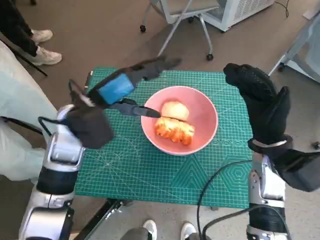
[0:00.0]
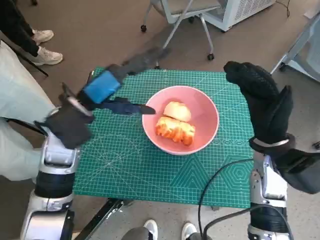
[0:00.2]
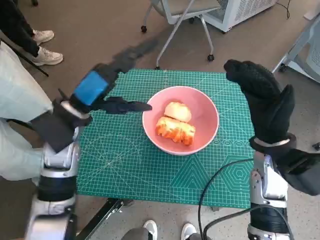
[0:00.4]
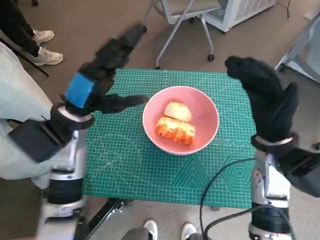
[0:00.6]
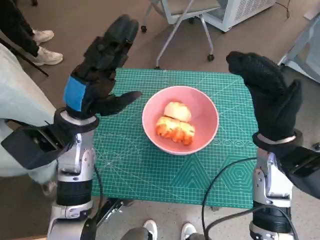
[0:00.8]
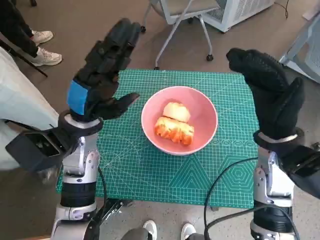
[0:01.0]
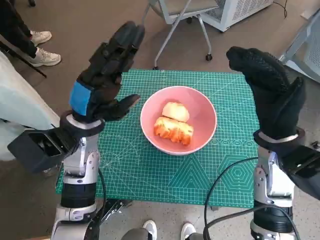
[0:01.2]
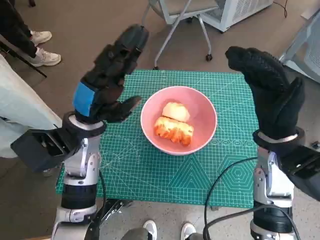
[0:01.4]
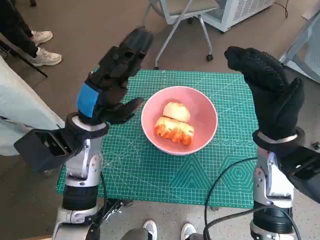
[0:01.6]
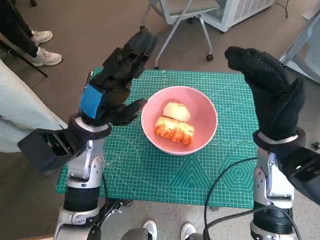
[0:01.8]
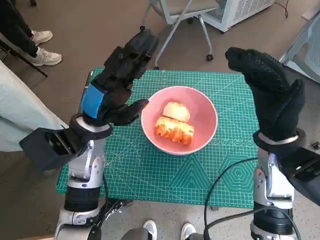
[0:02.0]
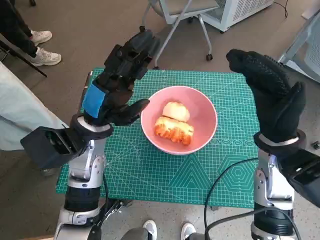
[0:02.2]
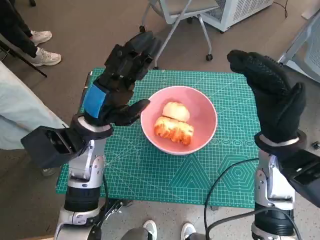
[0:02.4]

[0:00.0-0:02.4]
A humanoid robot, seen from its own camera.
Task of the whole recording: Push the bowl into the center of the table and put the bread into the bowl.
0:01.2 to 0:02.4: The hands make only small movements.
